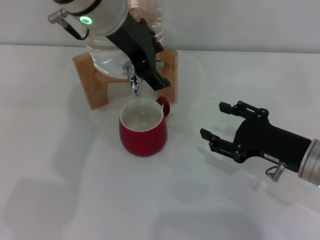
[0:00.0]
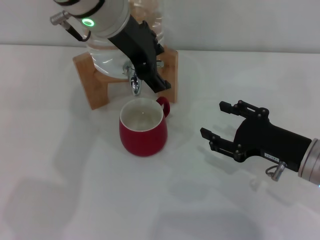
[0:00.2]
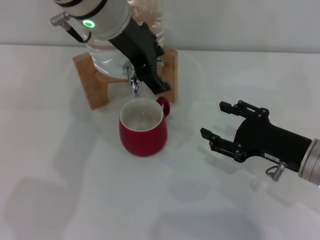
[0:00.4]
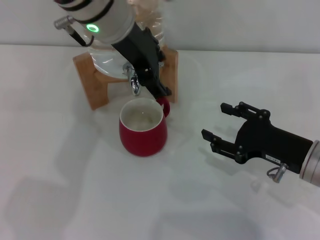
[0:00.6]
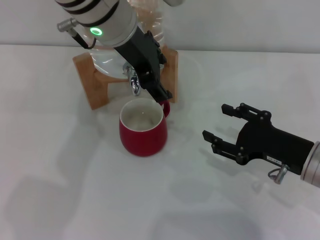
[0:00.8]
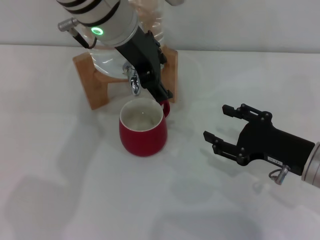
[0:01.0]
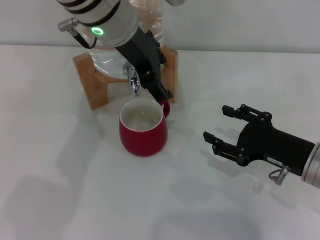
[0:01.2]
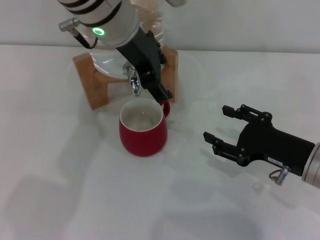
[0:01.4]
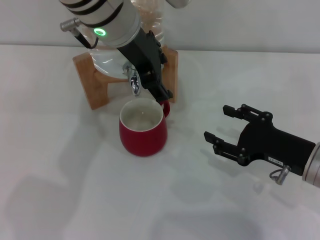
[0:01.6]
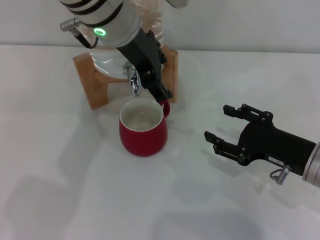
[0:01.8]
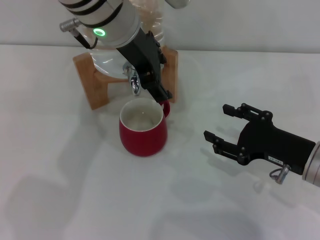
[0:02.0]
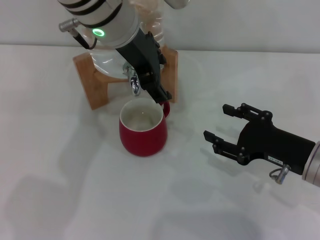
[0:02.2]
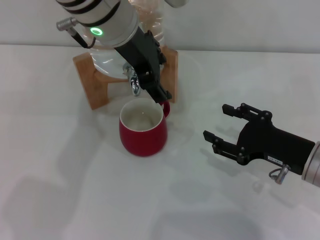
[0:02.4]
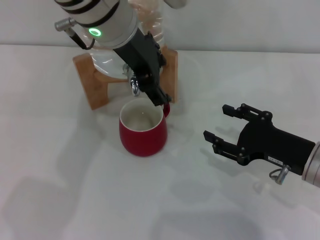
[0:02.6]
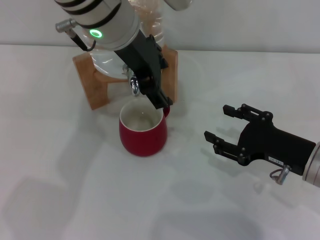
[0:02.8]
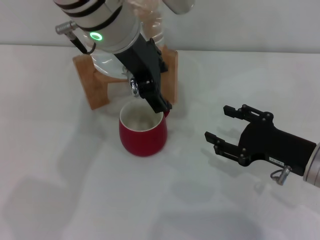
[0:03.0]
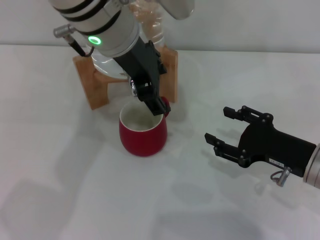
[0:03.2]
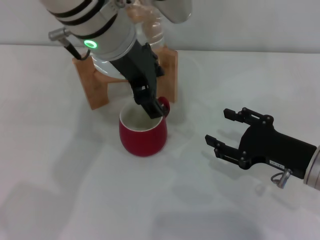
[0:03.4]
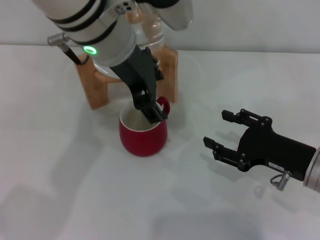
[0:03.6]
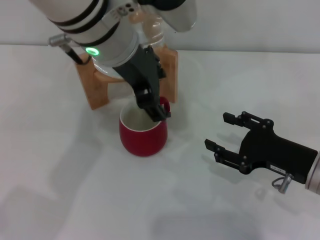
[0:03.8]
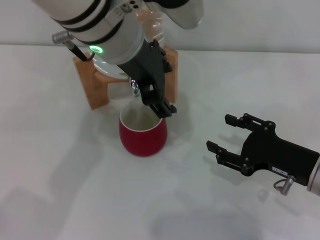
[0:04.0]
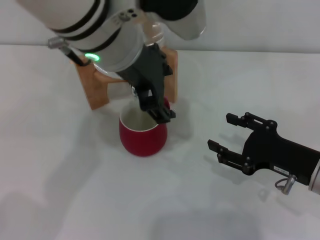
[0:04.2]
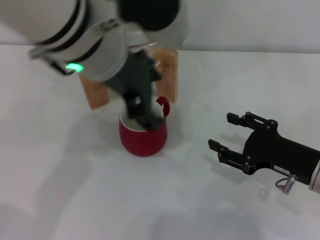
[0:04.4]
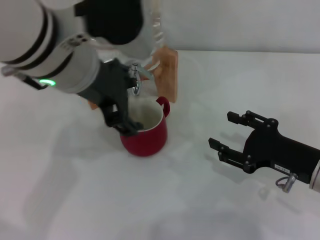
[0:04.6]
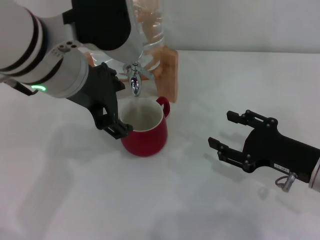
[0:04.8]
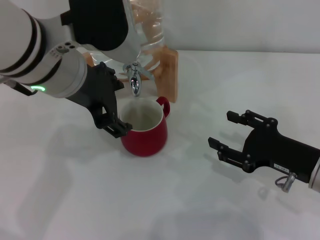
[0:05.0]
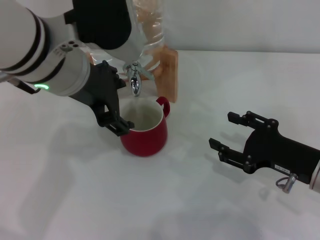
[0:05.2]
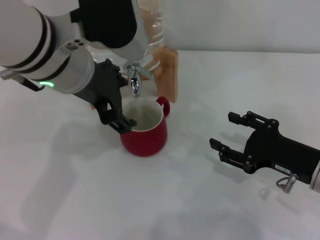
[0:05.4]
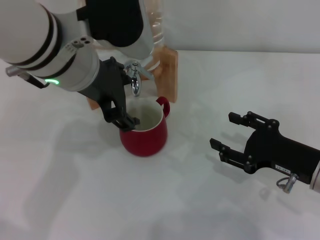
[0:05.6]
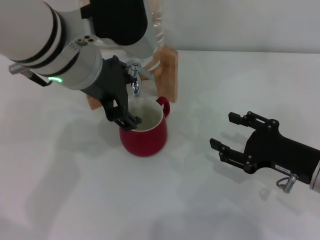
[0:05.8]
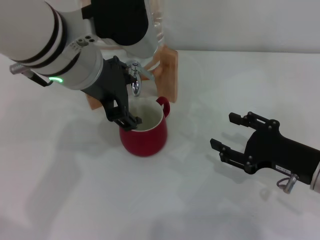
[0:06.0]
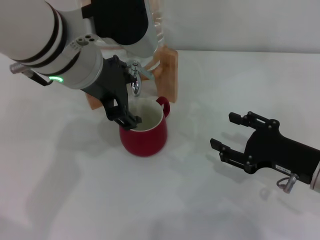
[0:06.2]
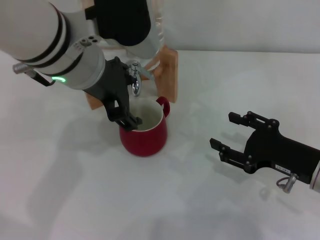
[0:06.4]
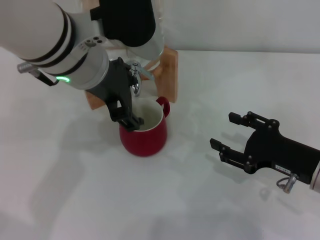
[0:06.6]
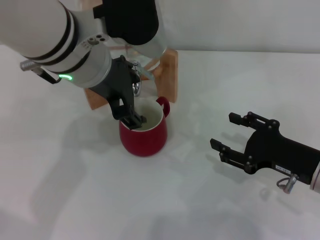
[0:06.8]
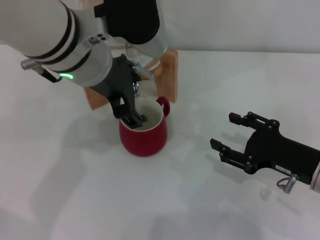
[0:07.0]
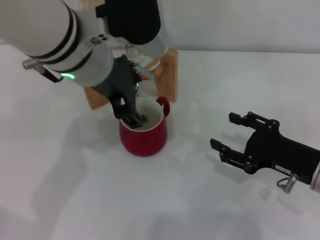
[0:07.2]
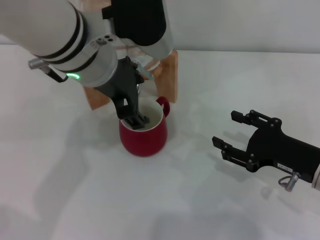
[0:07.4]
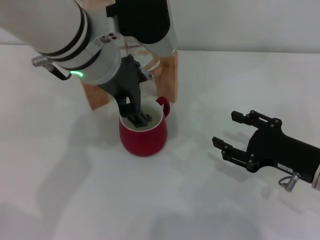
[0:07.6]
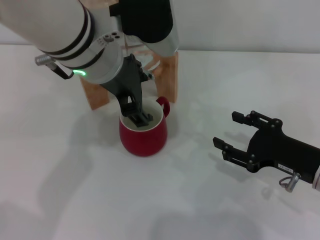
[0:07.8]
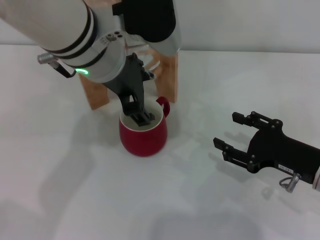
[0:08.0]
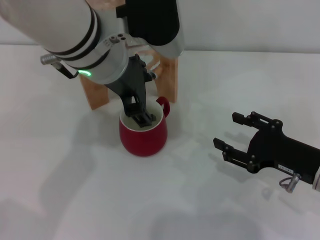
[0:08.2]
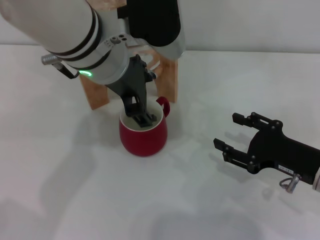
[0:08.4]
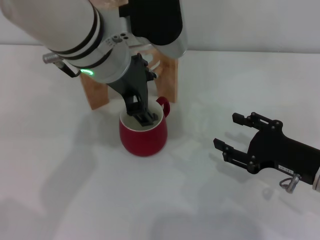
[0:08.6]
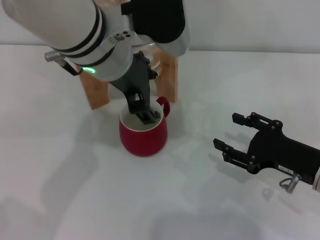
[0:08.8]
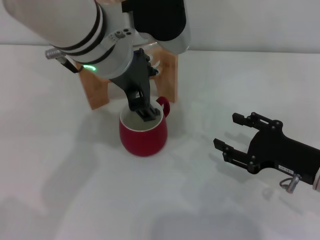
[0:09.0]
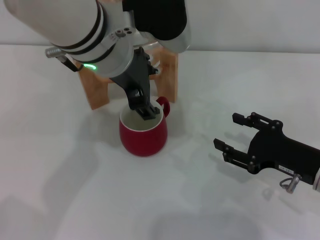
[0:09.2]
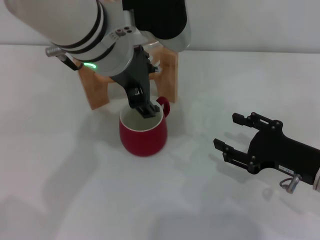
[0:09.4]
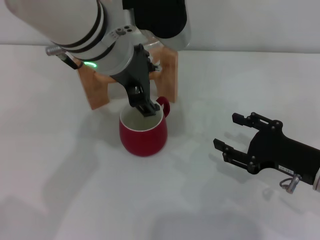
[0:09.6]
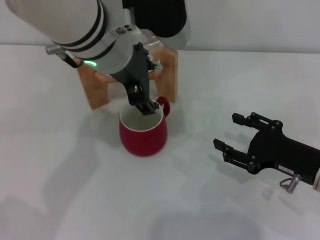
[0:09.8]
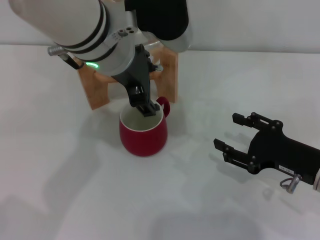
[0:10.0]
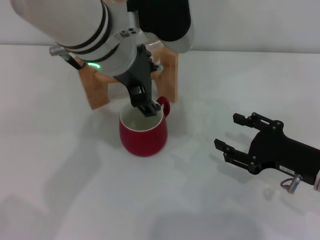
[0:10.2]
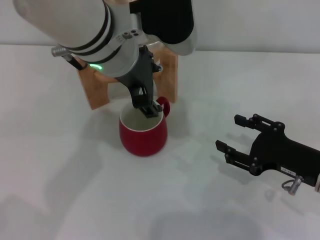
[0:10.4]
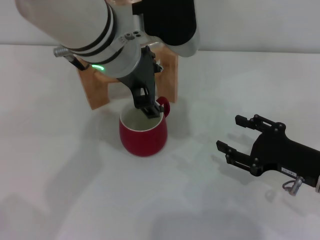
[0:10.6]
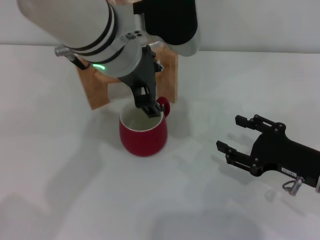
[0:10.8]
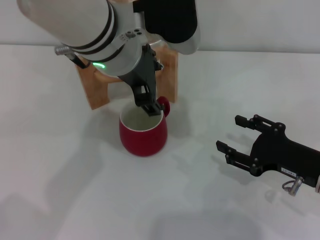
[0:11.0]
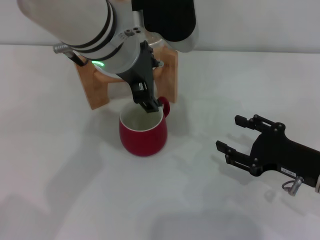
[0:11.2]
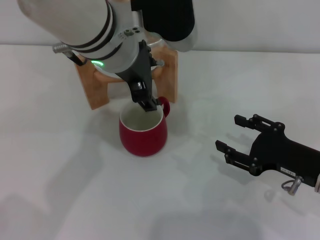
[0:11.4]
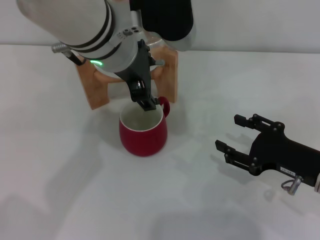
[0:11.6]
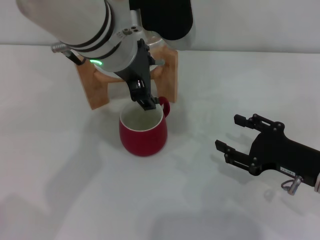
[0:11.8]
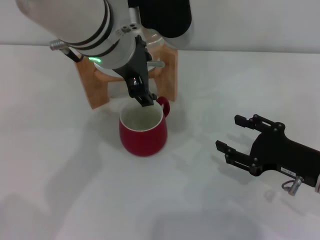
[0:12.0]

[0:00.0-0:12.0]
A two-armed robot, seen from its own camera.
Task of the whole recording: the right gripper pick up the red cup and place it horizontally under the faucet, the left gripper turn on the faucet to fill the cup, and then turn off the faucet.
Step, 0.0 to 7.2 s: Open the dispenser valve and fill the cup with water with the left gripper.
0.0 to 3.0 s: The grippers make only small movements.
3.0 to 4.4 s: The left gripper shifts approximately 5 cm backward.
4.4 to 7.6 s: The grippers make only small movements.
7.6 to 9.0 s: Both grippers stay about where they are.
9.0 to 10.4 s: Both grippers stay about where they are.
10.4 to 12.0 s: The two grippers keep their place.

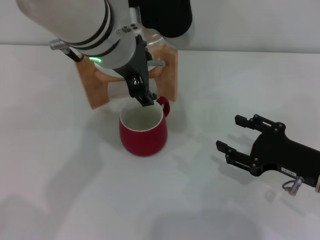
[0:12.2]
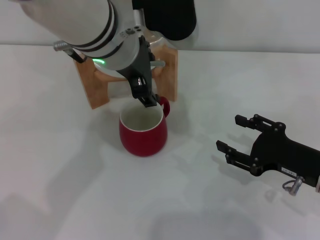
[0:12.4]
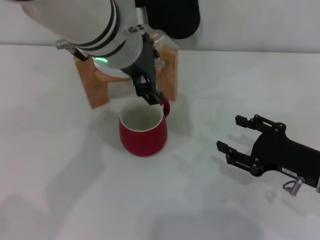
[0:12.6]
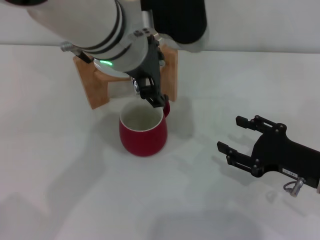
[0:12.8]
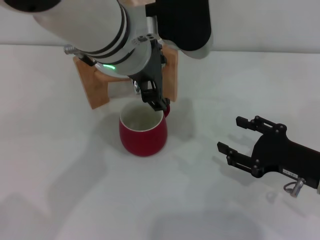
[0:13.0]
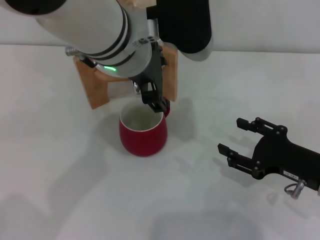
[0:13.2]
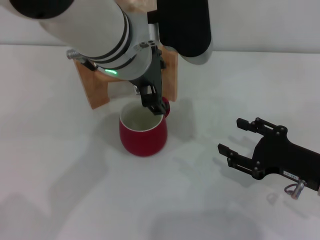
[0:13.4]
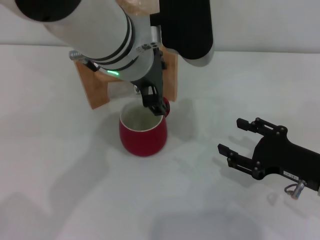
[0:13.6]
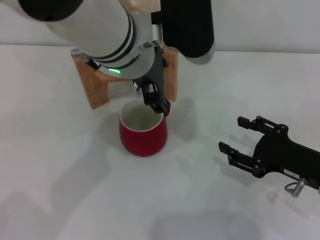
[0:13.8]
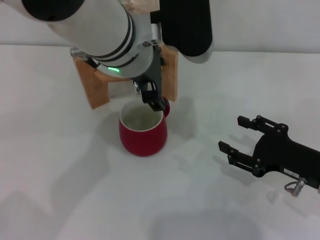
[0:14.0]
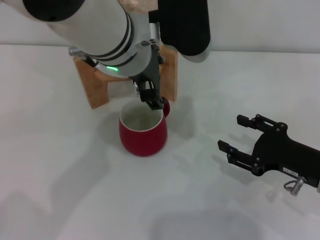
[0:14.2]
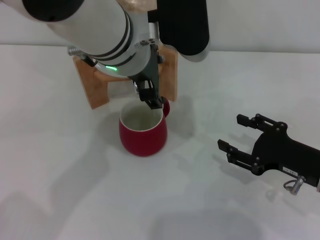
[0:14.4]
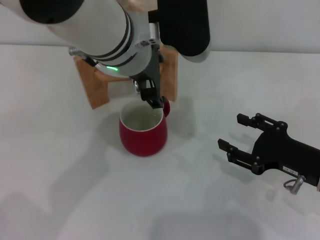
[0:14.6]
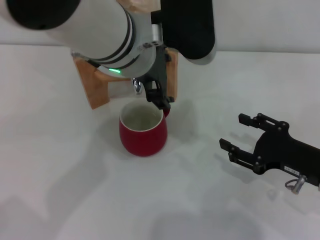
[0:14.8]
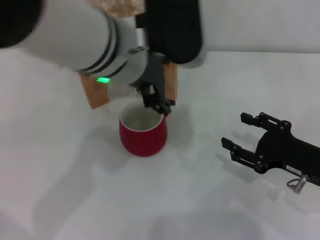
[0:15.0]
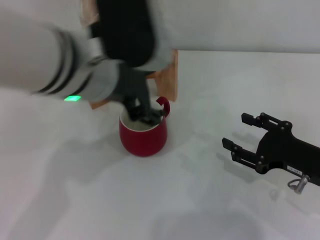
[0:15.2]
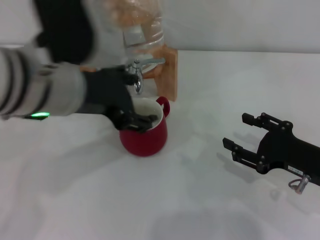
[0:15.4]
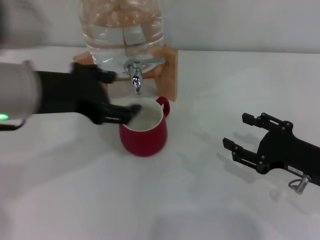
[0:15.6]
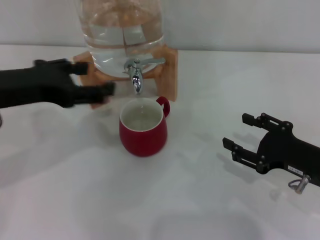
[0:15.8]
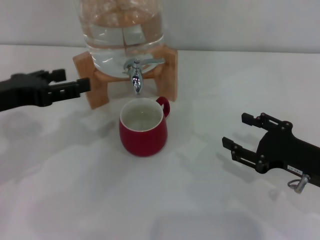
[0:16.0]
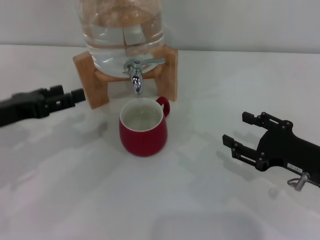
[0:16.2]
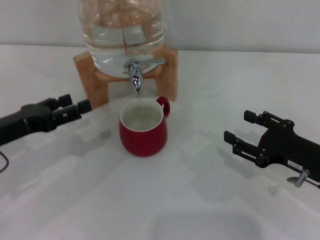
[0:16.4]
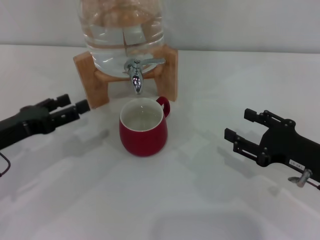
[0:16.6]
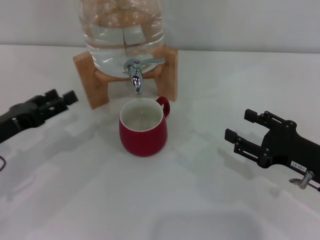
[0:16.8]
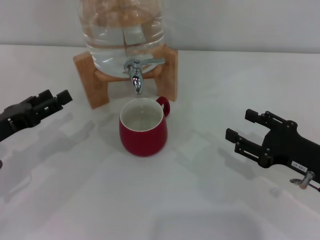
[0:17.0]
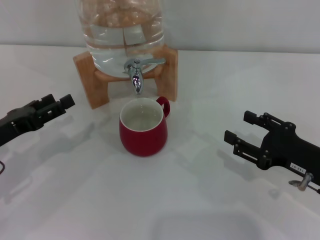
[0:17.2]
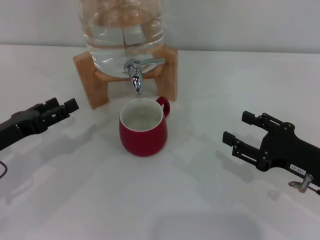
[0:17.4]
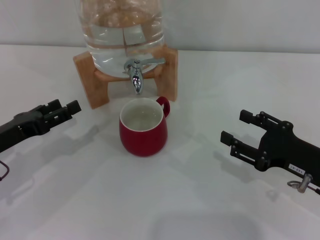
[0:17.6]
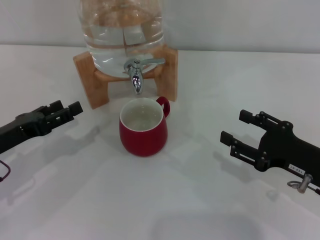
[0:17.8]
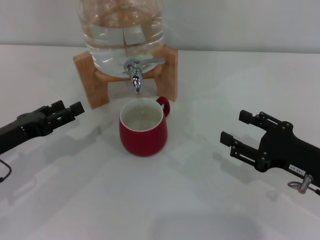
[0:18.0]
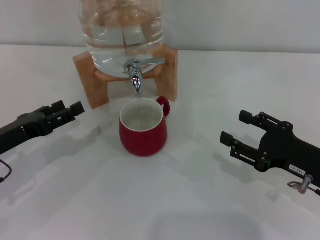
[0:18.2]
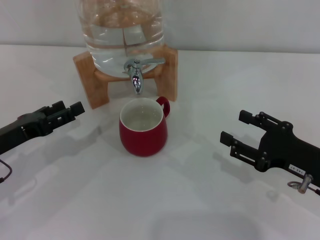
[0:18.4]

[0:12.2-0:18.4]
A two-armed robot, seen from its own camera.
Task of the whole recording: the right gripper pick up the red cup and place it horizontally under the faucet, the left gripper turn on the faucet to fill the cup, and then turn off the faucet.
Step, 12.2 to 15.0 s: Close the dispenser valve with the left gripper.
12.2 to 13.8 s: The grippers move only a little.
13.8 to 15.4 s: The left gripper is displaced to the left and backward by approximately 10 cm.
15.4 to 16.8 s: The left gripper goes approximately 25 cm to the left and downward.
16.8 to 18.4 s: The two grippers keep their place.

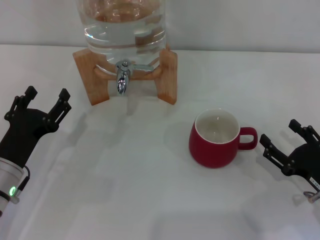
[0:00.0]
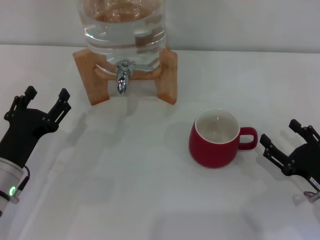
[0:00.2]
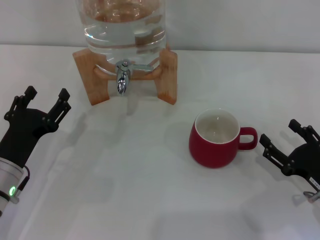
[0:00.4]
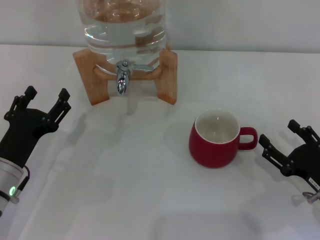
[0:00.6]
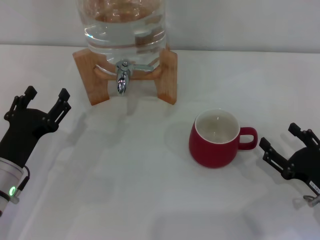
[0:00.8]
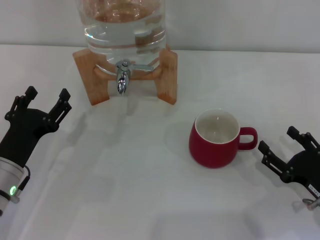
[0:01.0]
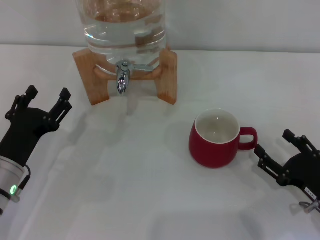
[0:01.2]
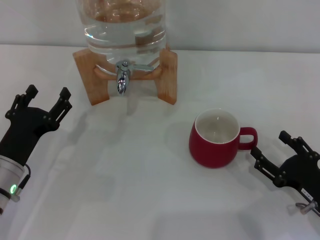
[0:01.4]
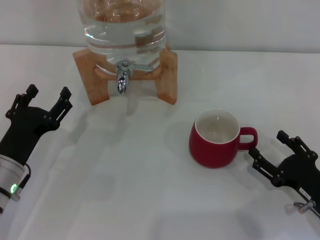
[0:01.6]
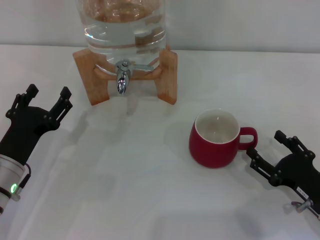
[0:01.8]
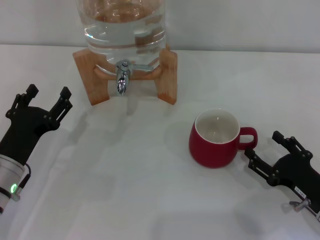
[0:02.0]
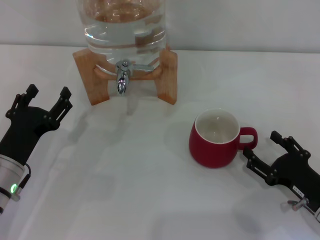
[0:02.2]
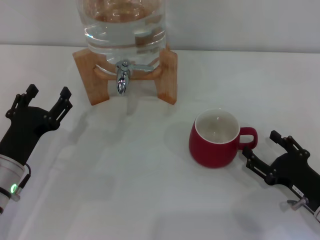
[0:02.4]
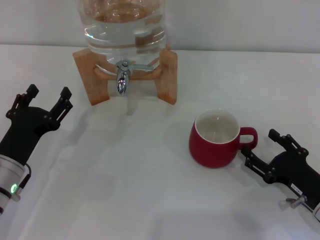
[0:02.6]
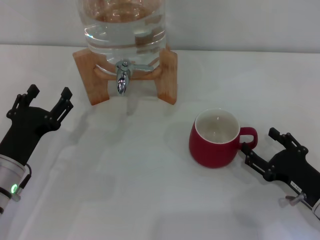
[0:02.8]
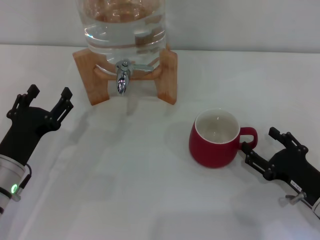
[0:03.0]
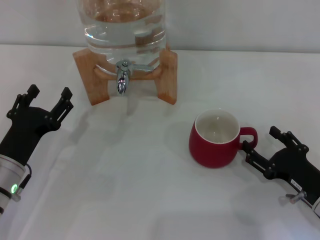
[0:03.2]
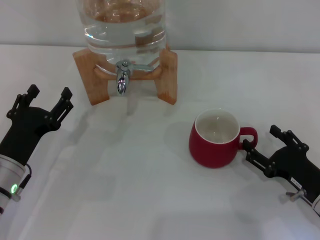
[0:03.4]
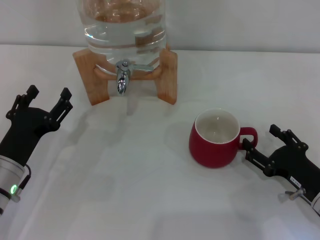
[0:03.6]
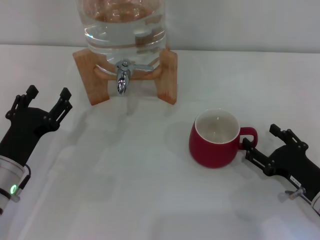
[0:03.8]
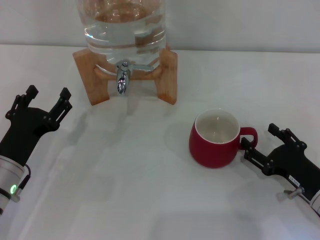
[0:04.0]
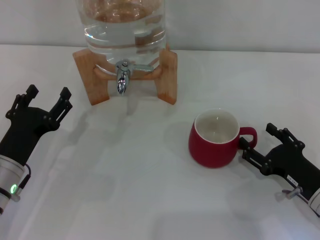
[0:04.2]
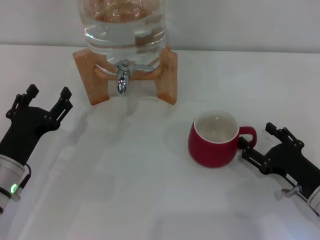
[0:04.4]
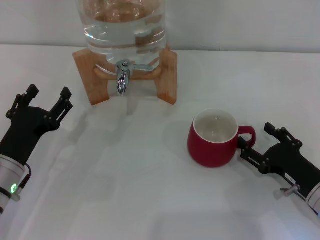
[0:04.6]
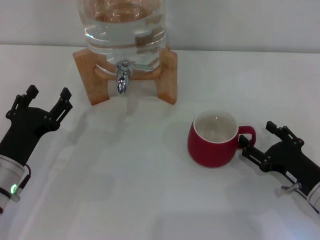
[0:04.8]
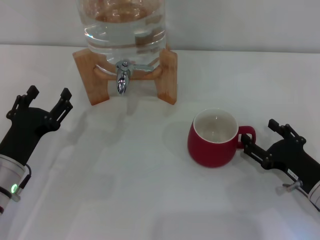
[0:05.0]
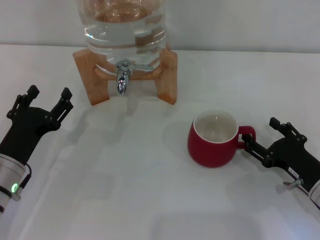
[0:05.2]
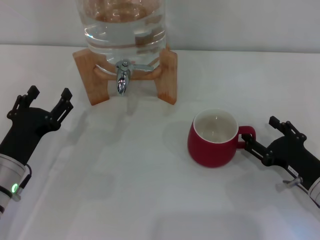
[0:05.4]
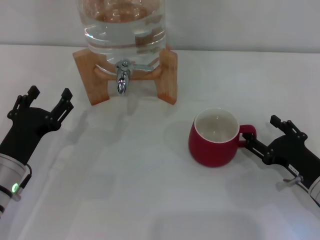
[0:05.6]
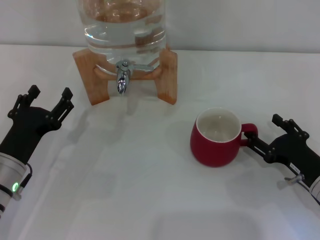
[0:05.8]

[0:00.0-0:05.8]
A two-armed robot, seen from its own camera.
Task of the whole recording: the right gripper pick up the red cup and place it horizontally under the faucet, the left gripper turn on the faucet to fill the cup, and then turn off the faucet.
0.0 to 2.8 s: The grippers move only a little.
2.8 to 4.4 s: The two grippers keep their place.
4.4 to 5.8 s: The grippers make only small movements.
